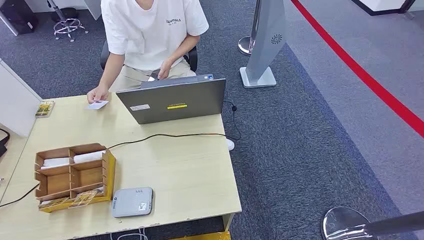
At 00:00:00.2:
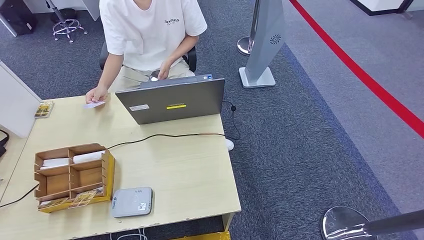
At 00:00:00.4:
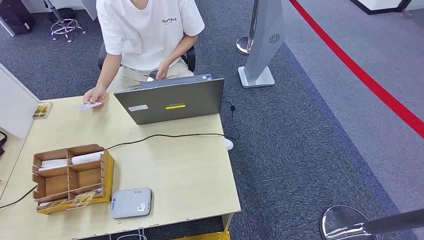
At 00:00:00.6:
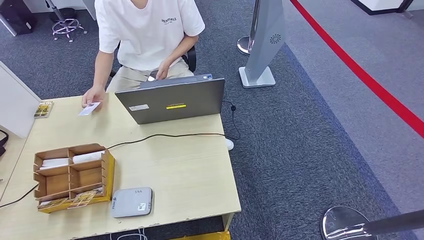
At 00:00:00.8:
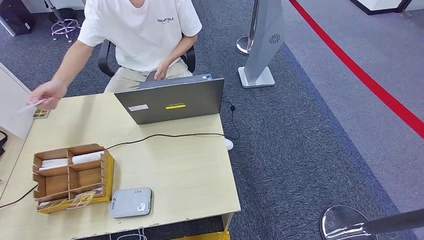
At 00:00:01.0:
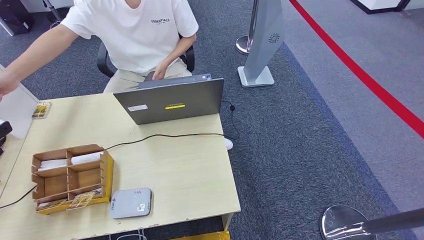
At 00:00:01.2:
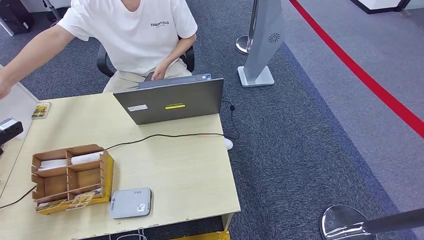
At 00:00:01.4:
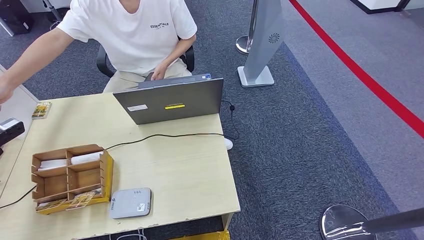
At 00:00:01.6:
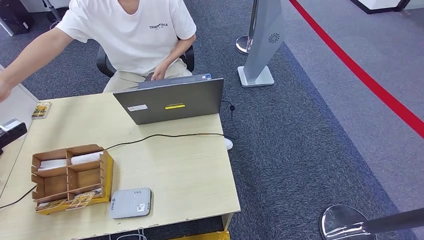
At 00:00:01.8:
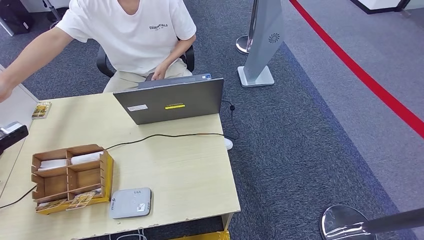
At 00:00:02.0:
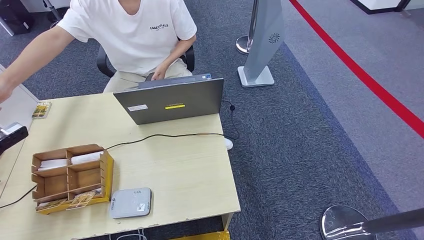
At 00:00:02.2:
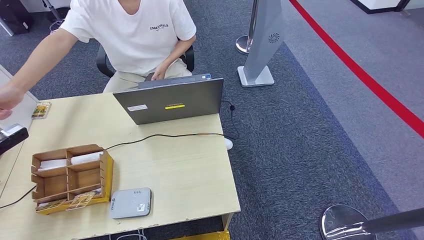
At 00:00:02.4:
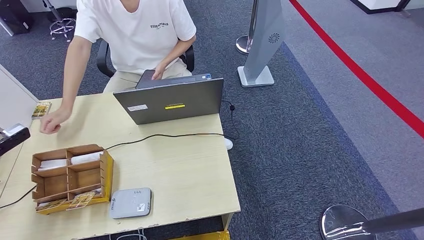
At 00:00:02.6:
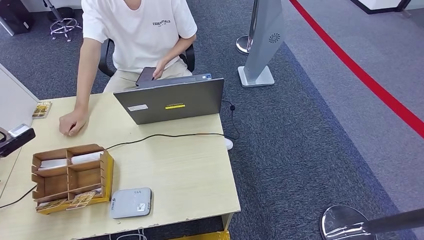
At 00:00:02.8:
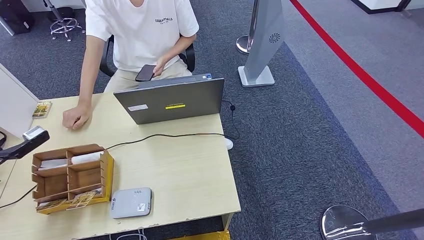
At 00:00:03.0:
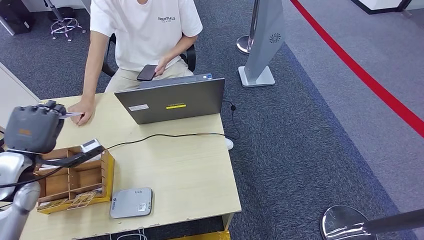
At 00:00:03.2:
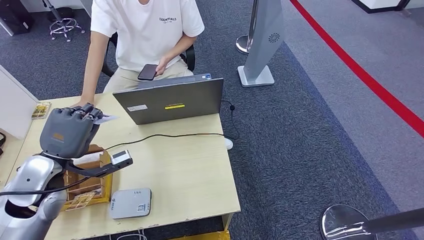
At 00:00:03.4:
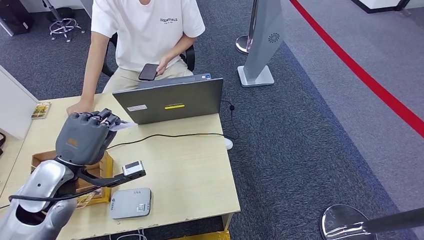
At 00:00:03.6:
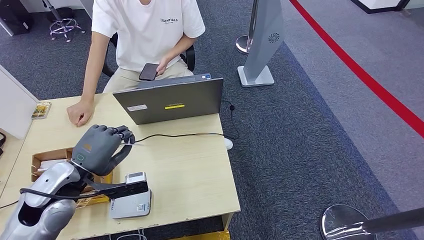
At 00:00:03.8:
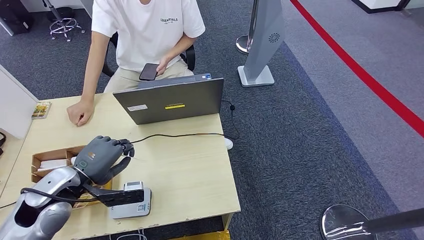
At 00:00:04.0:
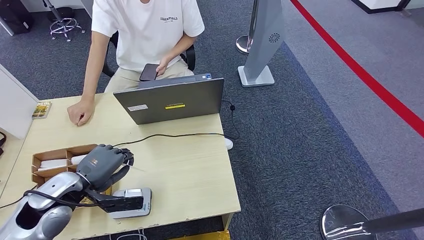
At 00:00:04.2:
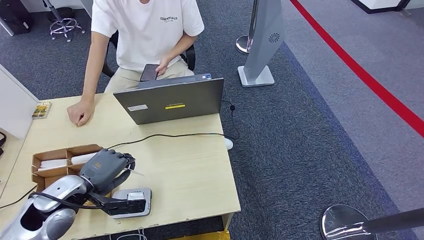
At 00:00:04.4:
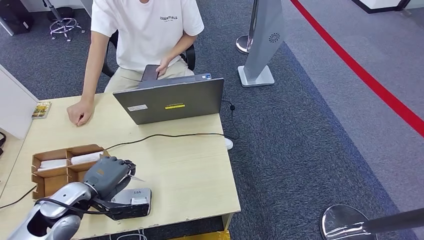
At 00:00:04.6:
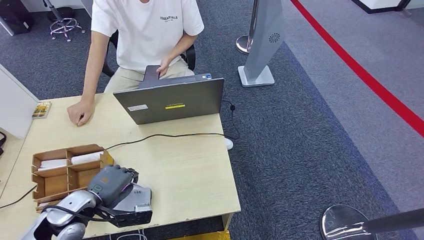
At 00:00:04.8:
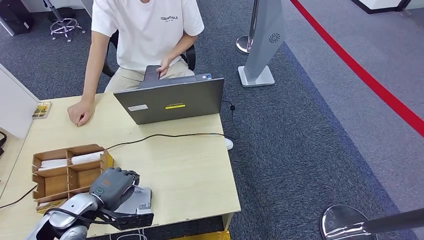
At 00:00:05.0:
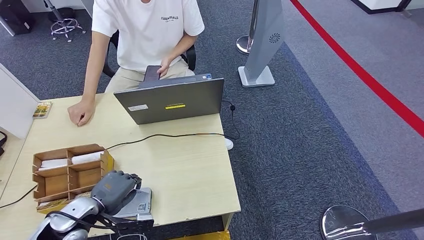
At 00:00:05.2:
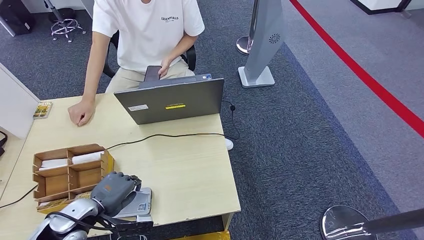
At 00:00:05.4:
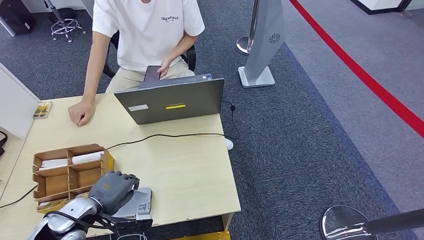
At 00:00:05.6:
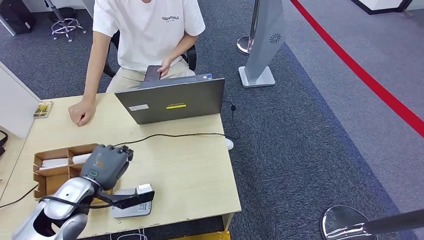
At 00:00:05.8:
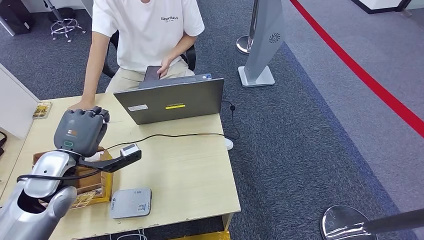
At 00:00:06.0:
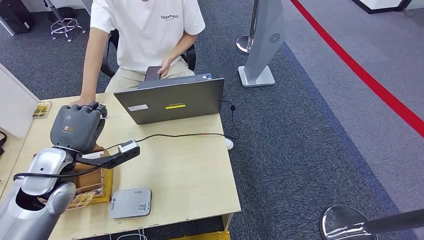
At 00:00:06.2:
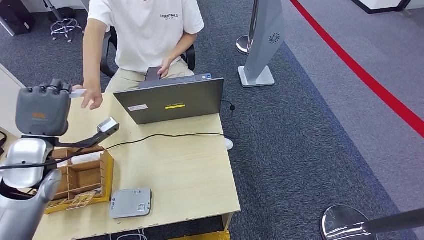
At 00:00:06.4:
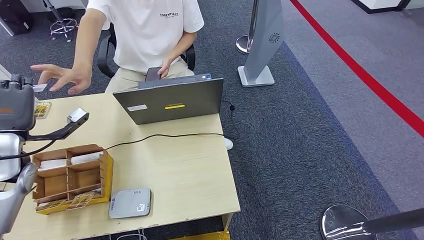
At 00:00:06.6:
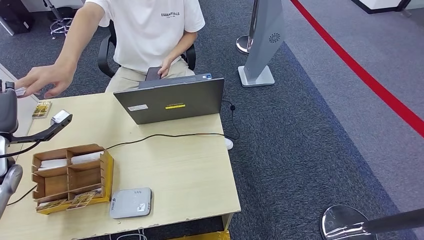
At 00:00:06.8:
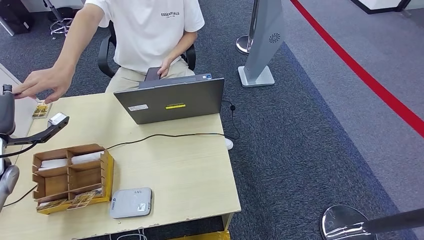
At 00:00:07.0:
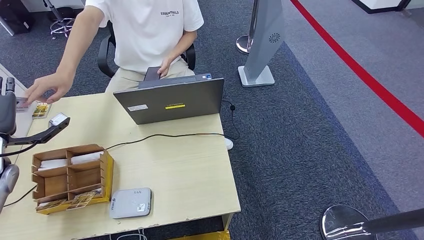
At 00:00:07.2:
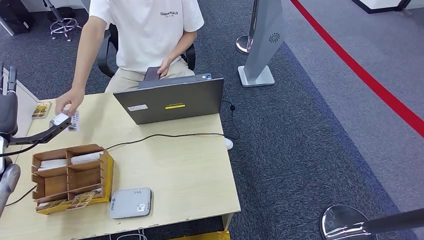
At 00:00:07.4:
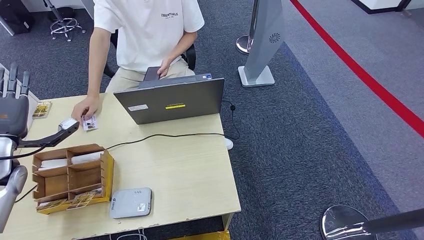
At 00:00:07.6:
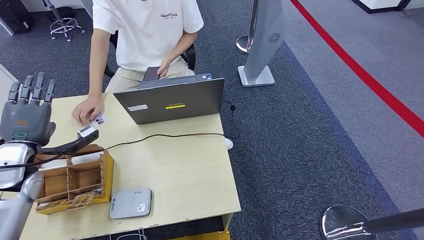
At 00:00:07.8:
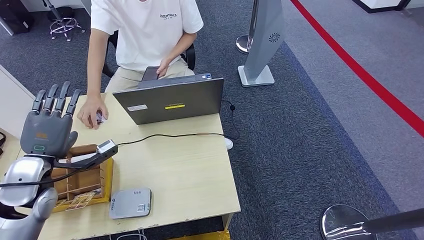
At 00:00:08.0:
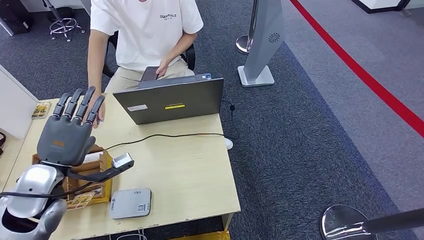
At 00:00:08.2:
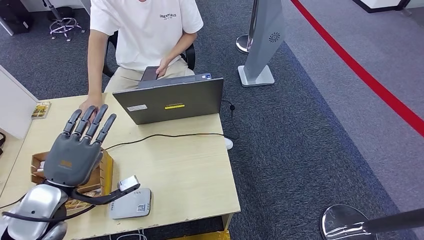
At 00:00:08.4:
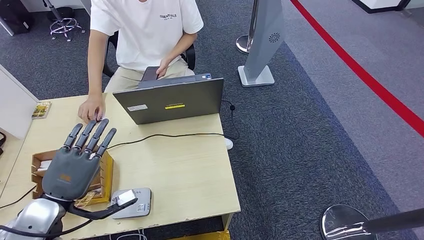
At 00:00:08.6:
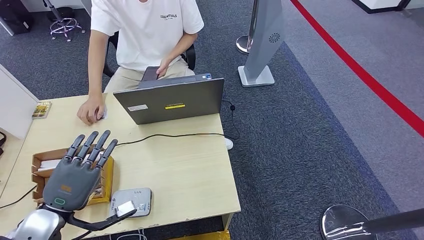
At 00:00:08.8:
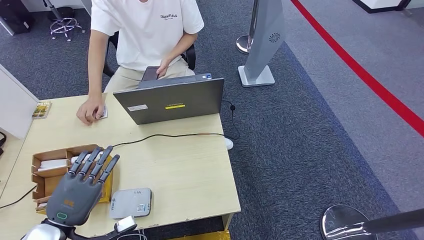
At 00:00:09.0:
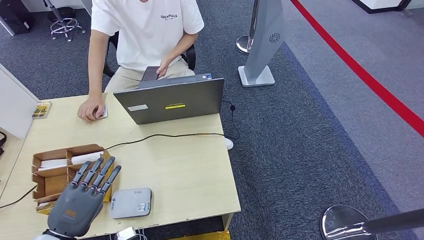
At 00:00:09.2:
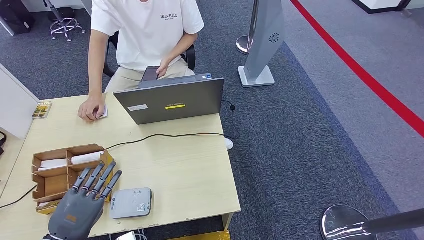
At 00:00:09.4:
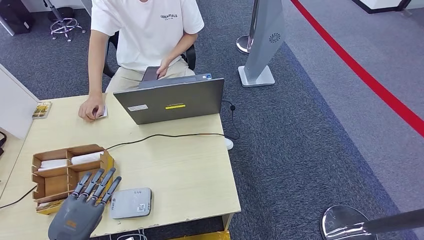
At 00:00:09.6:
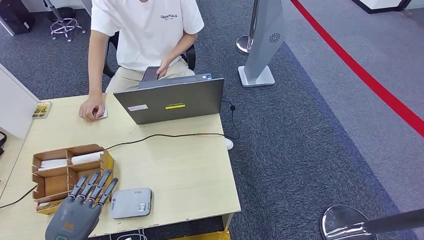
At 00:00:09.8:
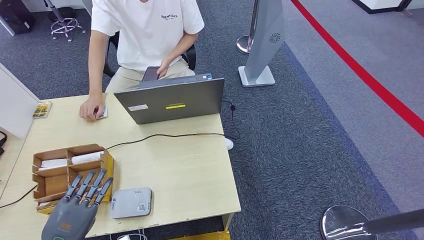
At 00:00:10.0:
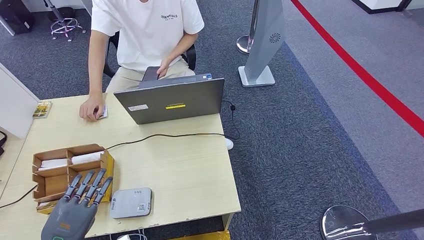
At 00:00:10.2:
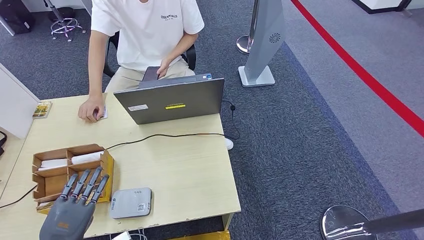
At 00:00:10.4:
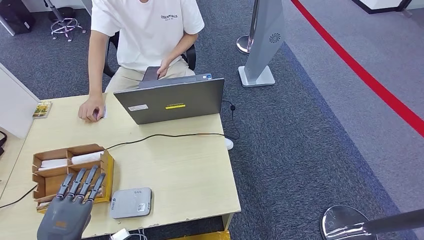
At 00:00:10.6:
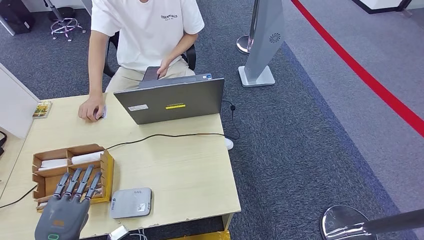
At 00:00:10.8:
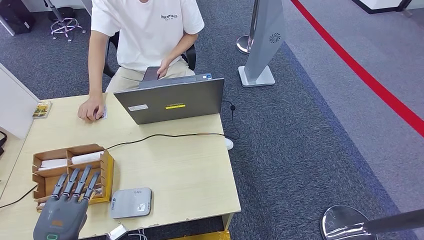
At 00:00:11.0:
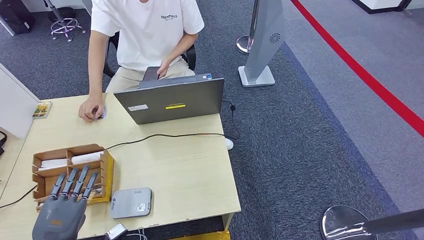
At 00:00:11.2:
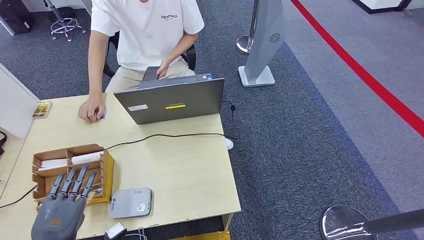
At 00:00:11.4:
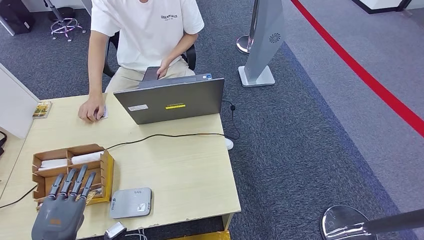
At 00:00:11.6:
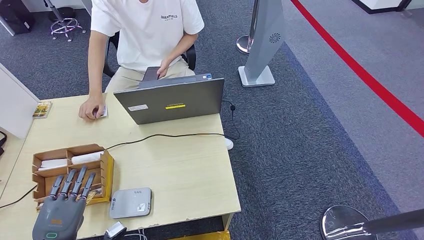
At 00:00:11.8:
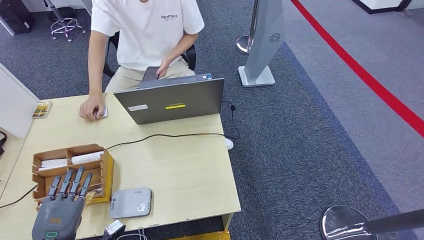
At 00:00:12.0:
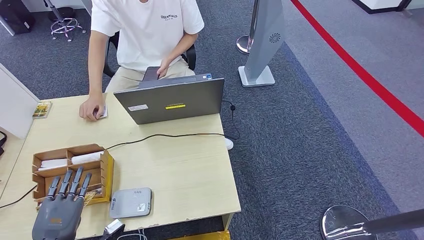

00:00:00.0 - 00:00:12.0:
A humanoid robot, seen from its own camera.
Step, 00:00:00.0 - 00:00:03.0: Take the ID card from the person's hand.
Step, 00:00:03.4 - 00:00:05.2: Place the ID card on the card reader.
Step, 00:00:05.6 - 00:00:06.8: Hand the ID card to the person.
00:00:01.6 - 00:00:03.0: The left hand goes some 15 cm to the right.
00:00:03.0 - 00:00:04.4: The left hand is displaced to the right, downward and backward by some 15 cm.
00:00:04.4 - 00:00:06.0: The left hand moves upward, roughly 10 cm.
00:00:06.0 - 00:00:07.6: The left hand goes about 10 cm to the left.
00:00:07.6 - 00:00:09.0: The left hand travels backward by some 20 cm.
00:00:09.0 - 00:00:10.4: The hands make only small movements.
00:00:10.4 - 00:00:12.0: The hands make only small movements.

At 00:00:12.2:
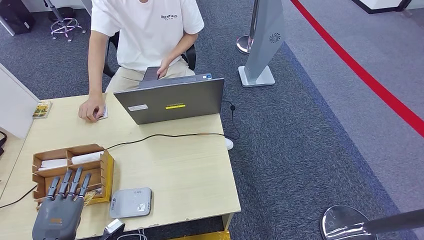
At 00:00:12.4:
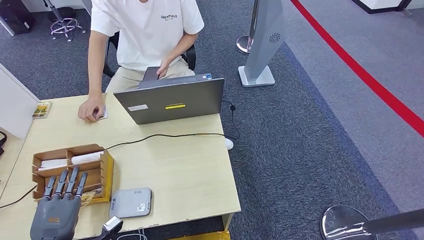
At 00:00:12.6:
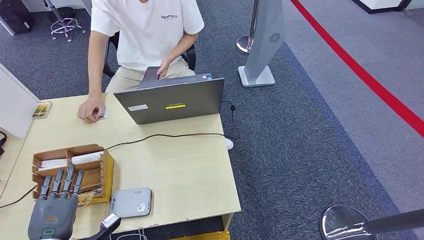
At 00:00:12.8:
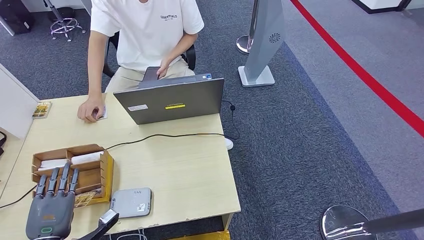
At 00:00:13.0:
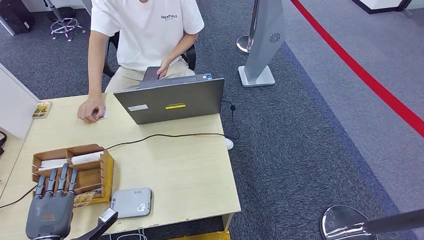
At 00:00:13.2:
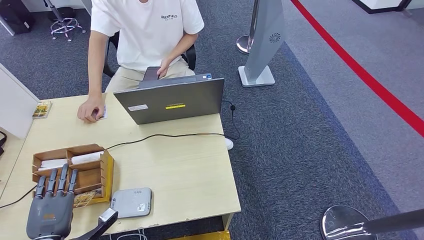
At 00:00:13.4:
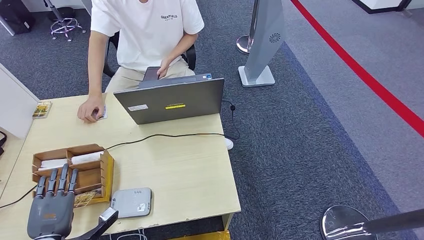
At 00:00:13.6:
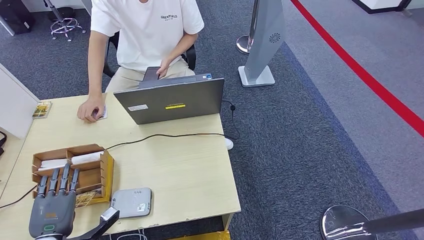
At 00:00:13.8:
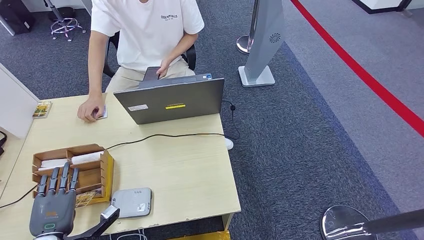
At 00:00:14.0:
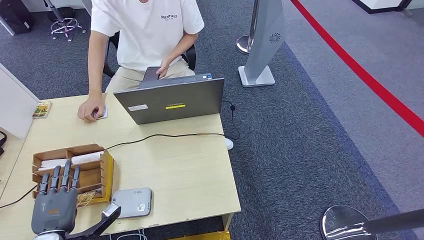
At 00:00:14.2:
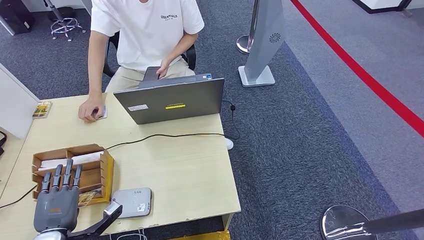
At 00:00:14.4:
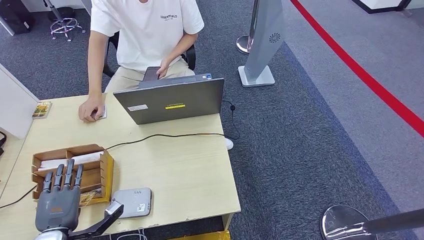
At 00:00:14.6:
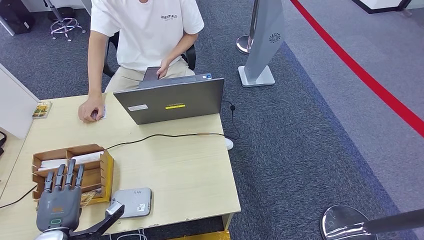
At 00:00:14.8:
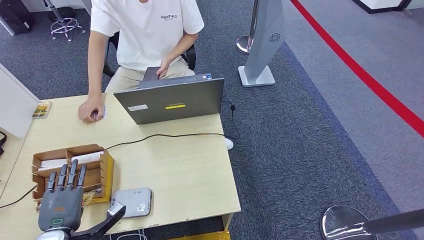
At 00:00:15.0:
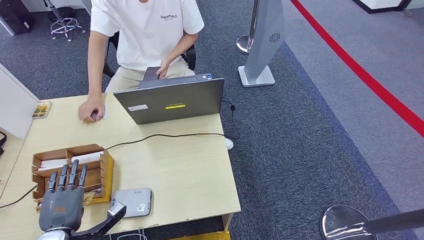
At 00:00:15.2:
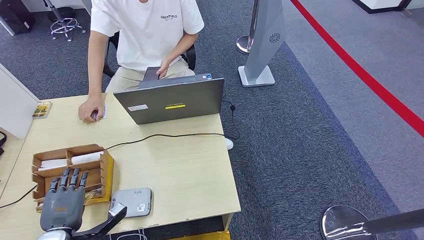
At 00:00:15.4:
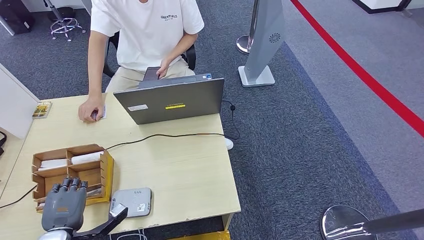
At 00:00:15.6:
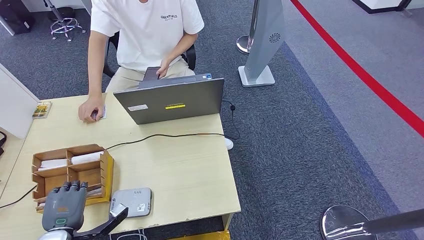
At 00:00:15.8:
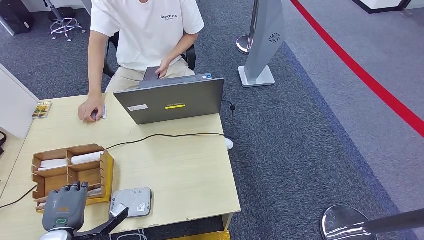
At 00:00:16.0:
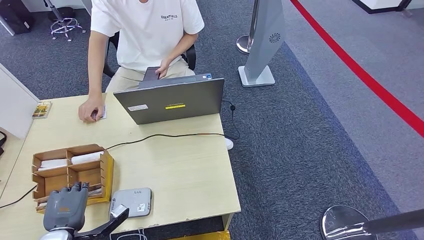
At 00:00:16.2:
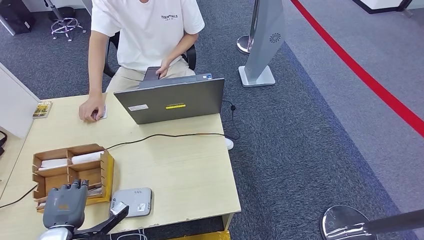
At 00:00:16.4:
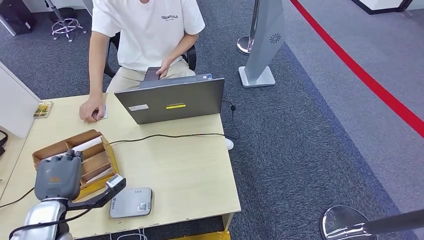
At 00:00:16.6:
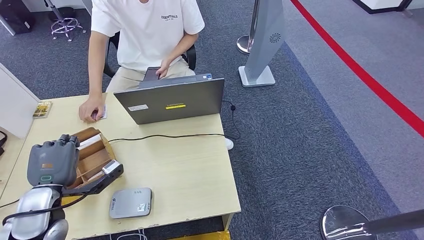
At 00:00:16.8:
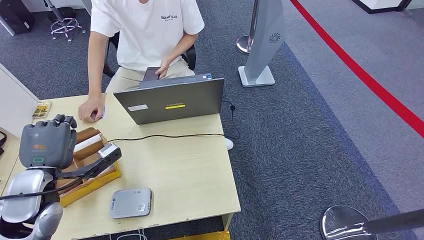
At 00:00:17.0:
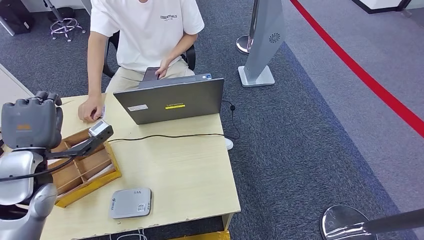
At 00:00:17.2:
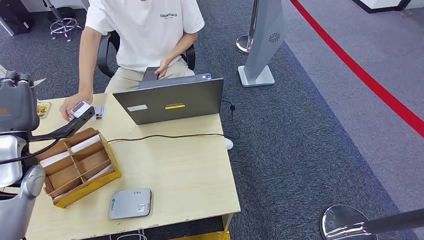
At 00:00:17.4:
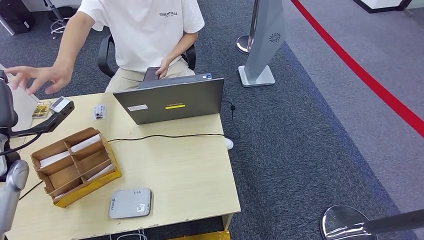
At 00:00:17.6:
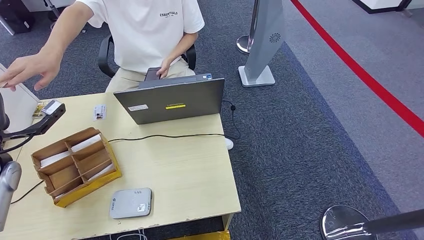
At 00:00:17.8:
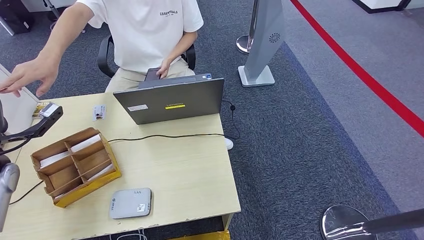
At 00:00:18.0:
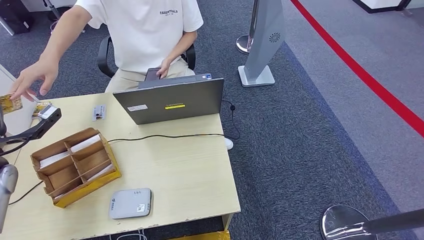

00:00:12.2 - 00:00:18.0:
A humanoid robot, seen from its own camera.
Step, 00:00:12.2 - 00:00:16.6: Pick up the room key from the key card box.
Step, 00:00:16.8 - 00:00:18.0: Hand the room key to the person.
00:00:12.2 - 00:00:15.0: There are only small adjustments of the hands.
00:00:15.0 - 00:00:16.6: The left hand travels upward and forward by approximately 10 cm.
00:00:16.6 - 00:00:18.0: The left hand heads to the left, forward and upward, covering approximately 15 cm.
